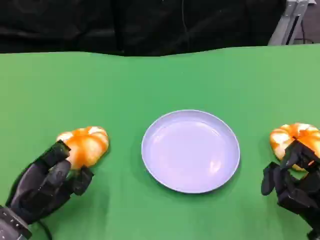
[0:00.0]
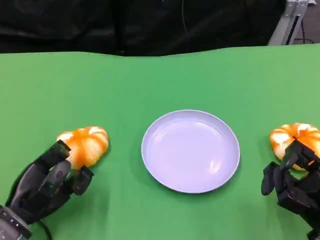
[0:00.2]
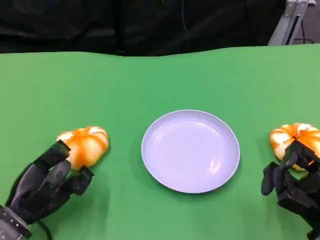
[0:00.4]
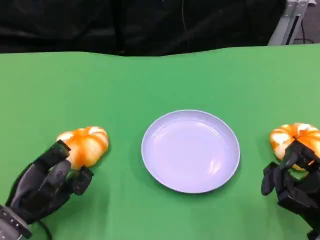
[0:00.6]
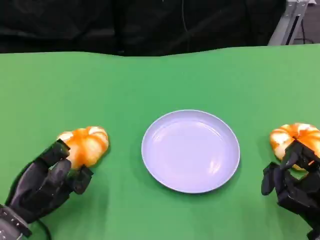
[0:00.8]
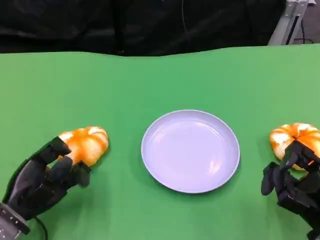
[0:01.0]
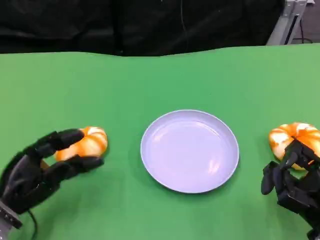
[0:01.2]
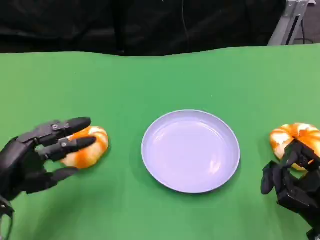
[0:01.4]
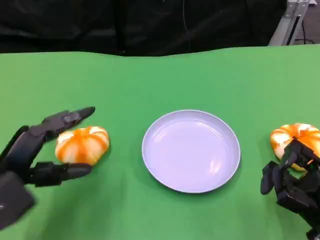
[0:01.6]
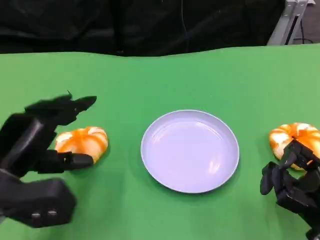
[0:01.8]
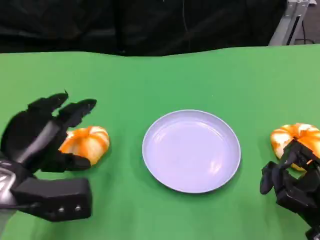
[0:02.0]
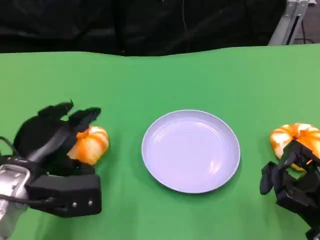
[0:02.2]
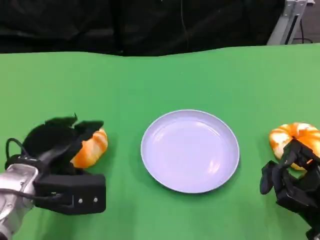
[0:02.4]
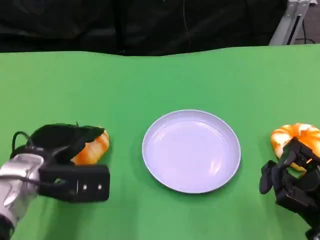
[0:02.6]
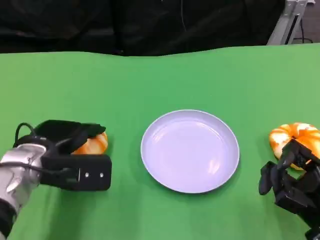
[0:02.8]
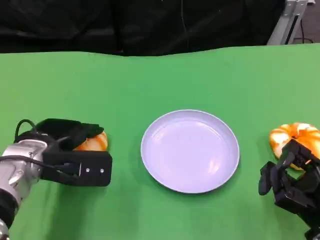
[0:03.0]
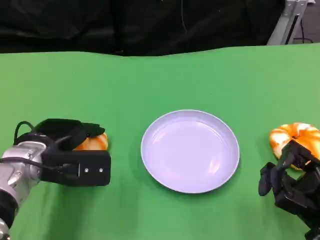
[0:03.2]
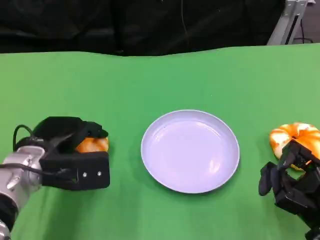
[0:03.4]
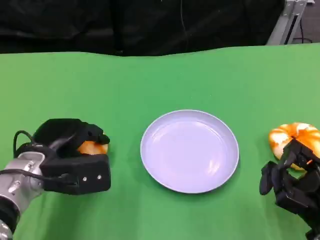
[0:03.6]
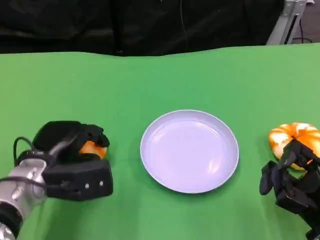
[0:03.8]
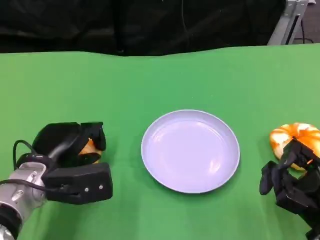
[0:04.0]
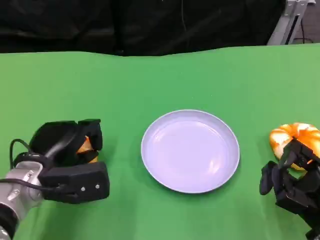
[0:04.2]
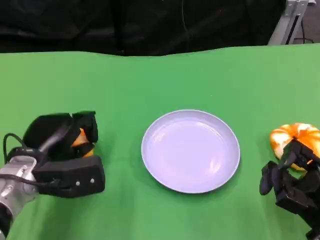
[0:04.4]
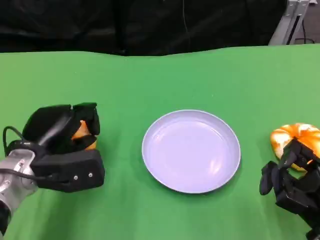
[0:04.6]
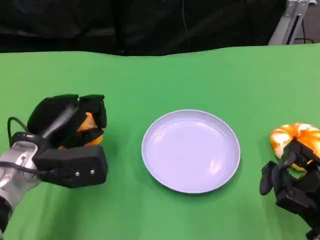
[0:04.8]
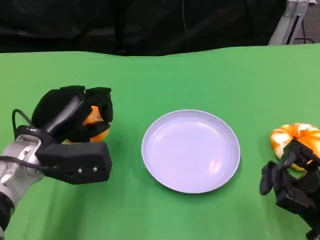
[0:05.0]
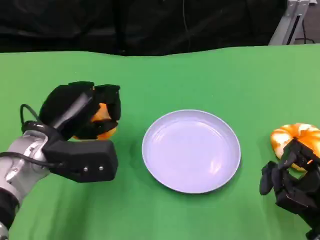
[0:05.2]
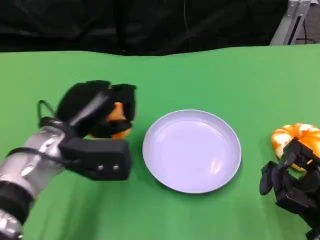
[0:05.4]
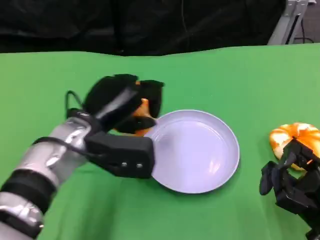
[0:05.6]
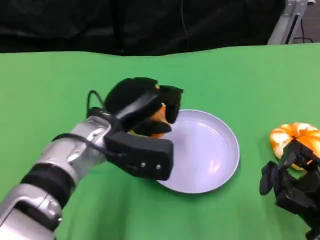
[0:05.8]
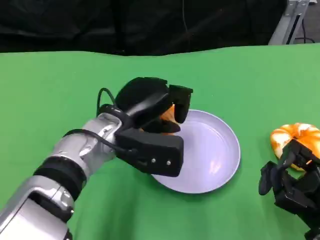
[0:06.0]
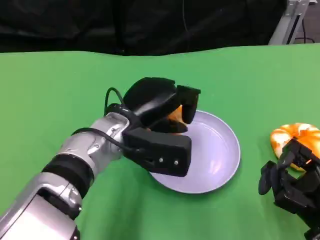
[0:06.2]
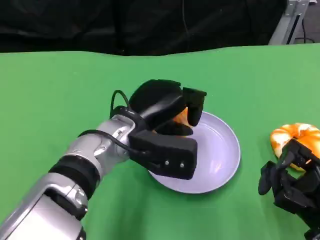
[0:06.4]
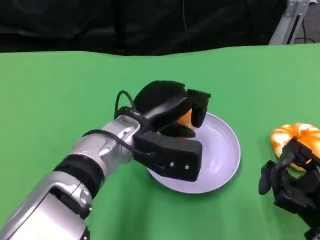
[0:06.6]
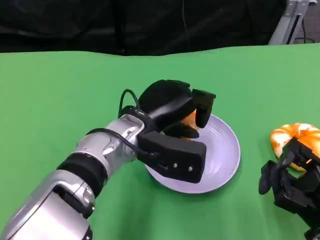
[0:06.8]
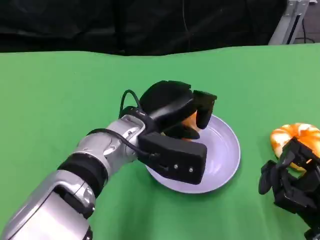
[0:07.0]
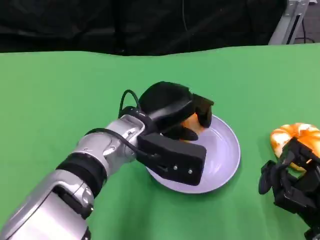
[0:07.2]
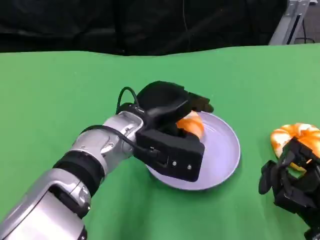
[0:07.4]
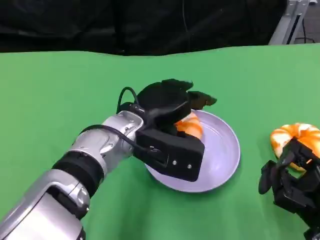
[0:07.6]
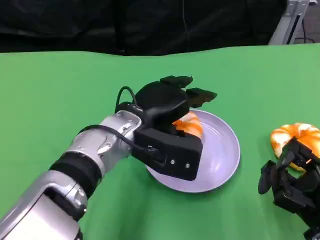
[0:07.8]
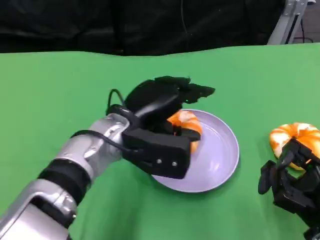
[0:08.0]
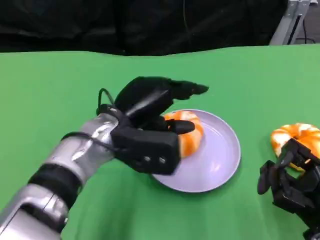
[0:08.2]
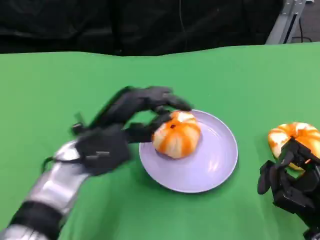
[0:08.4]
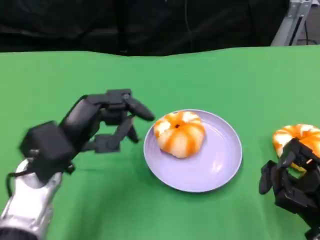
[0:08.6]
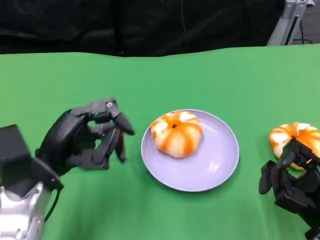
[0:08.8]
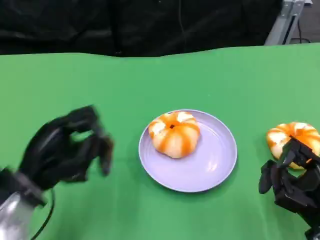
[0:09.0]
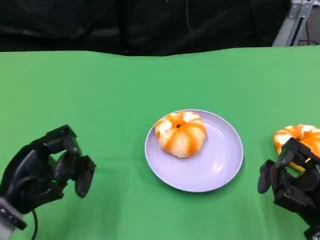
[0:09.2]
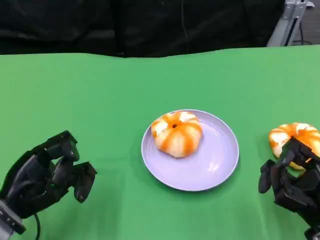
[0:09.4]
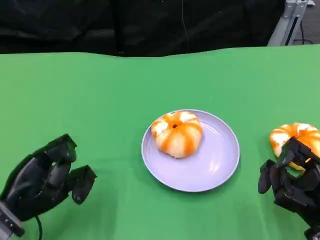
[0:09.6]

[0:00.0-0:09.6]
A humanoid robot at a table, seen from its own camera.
Task of the whole recording: Grasp the bread from the table and place it into the plate.
0:00.0 to 0:01.6: The left hand shifts some 10 cm upward.
0:01.6 to 0:03.2: The left hand heads forward, covering about 5 cm.
0:04.8 to 0:06.4: The left hand is displaced to the right by about 15 cm.
0:06.4 to 0:08.0: There are only small adjustments of the hands.
0:08.0 to 0:09.6: The left hand travels to the left, downward and backward by roughly 20 cm.

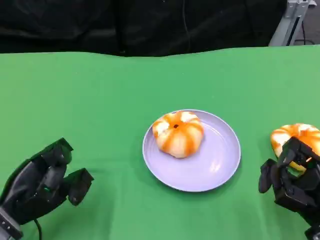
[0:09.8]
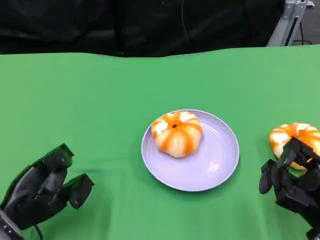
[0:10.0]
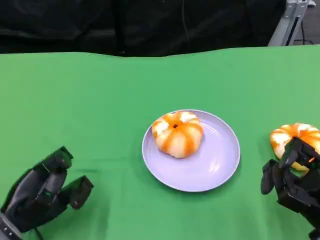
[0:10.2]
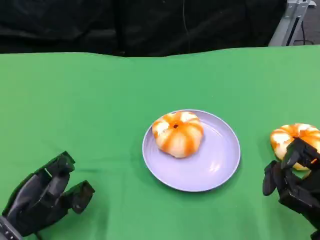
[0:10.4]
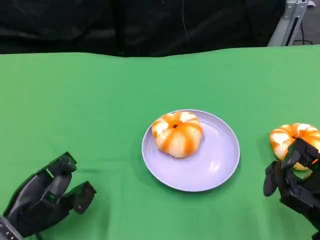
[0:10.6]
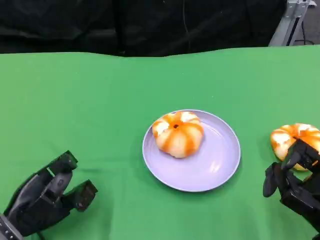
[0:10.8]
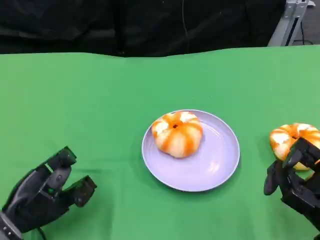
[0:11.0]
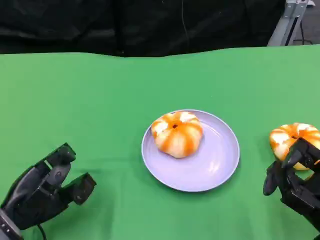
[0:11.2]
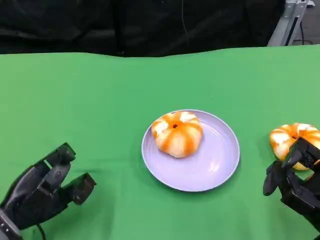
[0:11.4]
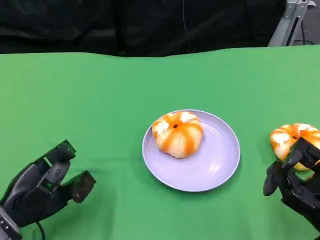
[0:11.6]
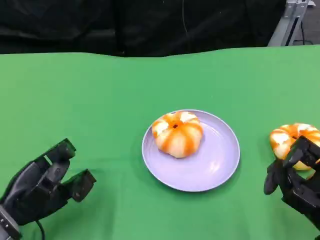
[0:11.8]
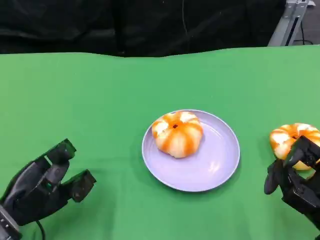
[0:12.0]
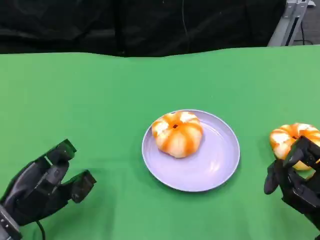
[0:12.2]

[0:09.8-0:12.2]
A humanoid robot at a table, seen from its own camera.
Task of the whole recording: Grasp the bread from the table and place it into the plate.
0:09.8 to 0:12.2: The hands move only a little.

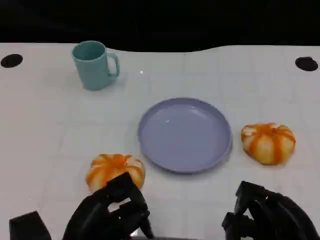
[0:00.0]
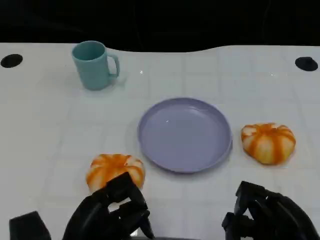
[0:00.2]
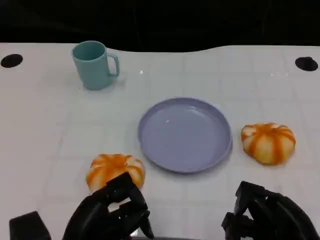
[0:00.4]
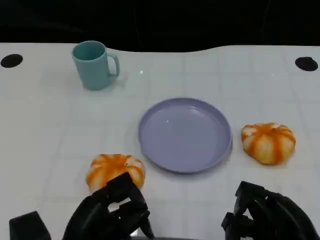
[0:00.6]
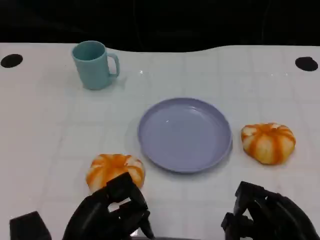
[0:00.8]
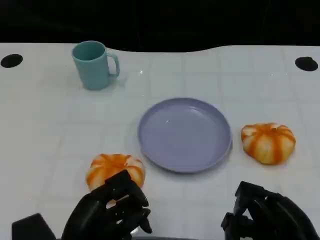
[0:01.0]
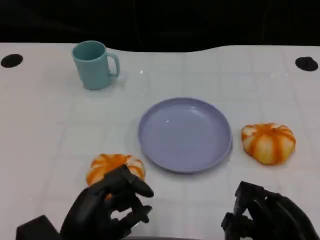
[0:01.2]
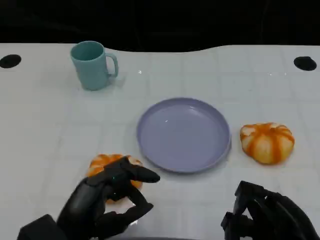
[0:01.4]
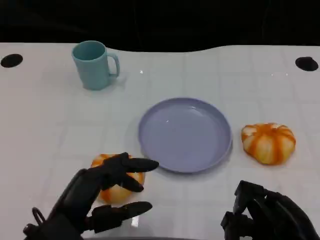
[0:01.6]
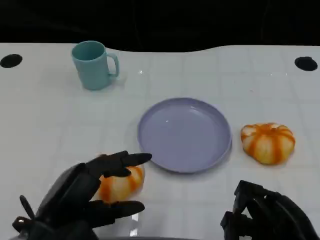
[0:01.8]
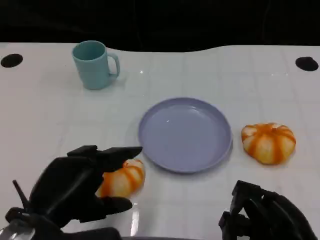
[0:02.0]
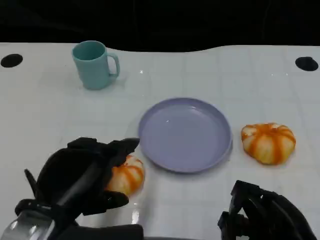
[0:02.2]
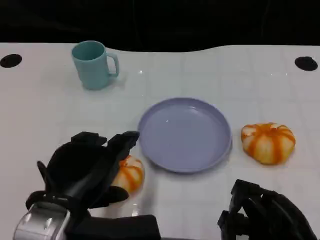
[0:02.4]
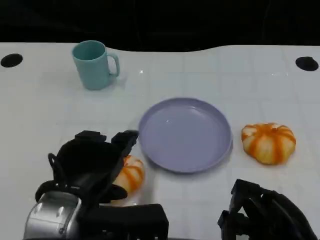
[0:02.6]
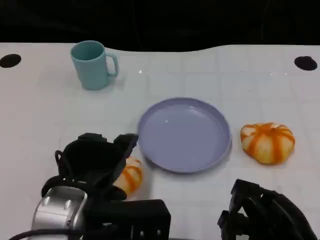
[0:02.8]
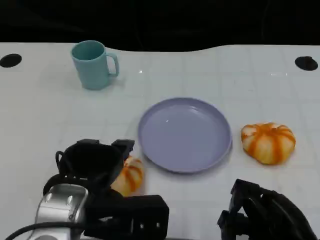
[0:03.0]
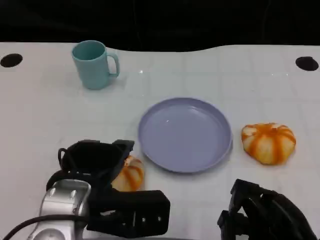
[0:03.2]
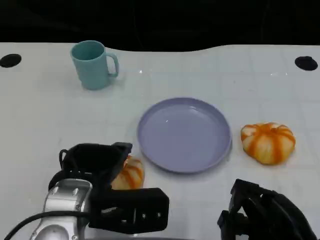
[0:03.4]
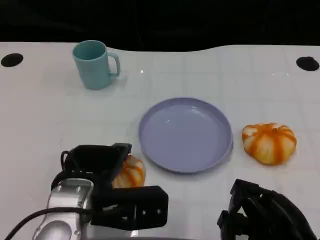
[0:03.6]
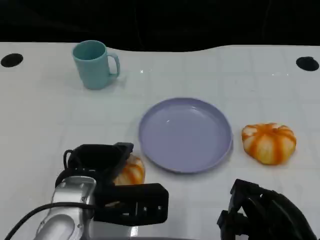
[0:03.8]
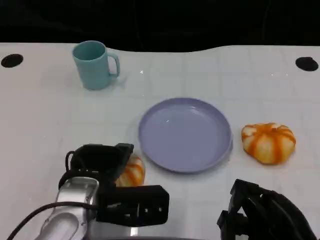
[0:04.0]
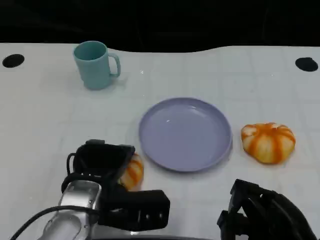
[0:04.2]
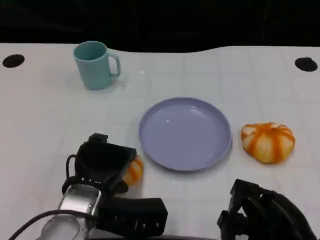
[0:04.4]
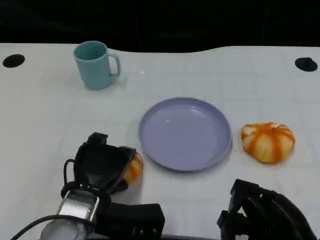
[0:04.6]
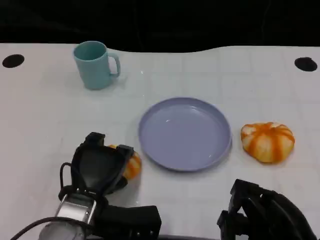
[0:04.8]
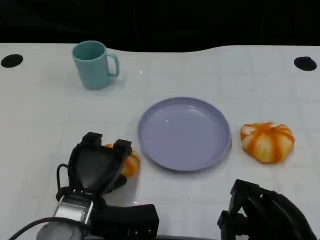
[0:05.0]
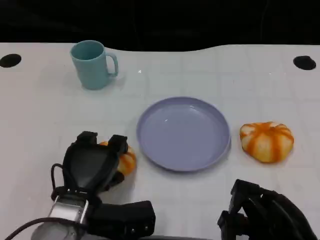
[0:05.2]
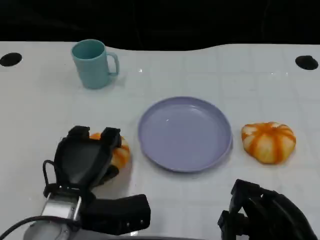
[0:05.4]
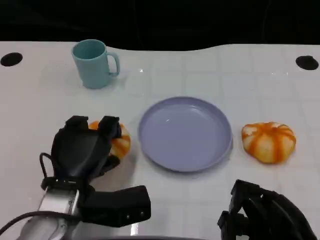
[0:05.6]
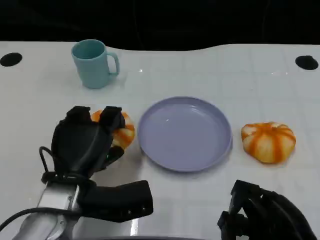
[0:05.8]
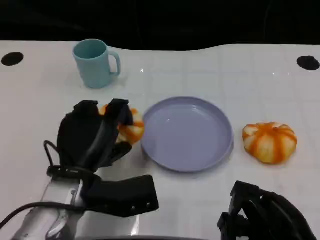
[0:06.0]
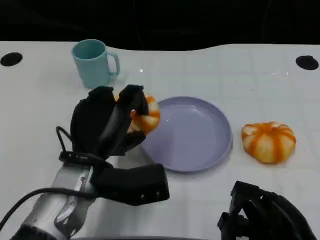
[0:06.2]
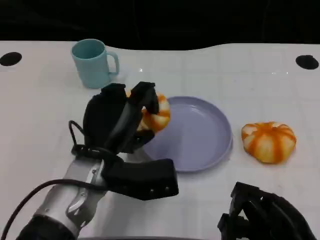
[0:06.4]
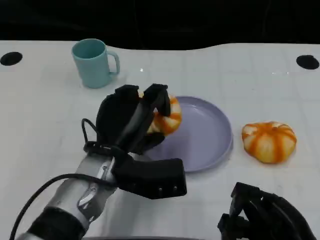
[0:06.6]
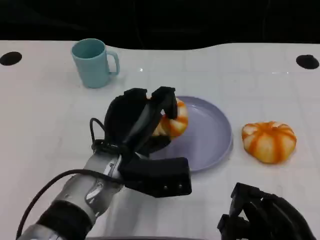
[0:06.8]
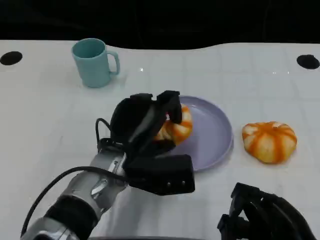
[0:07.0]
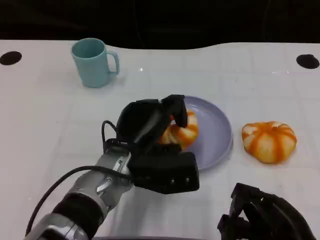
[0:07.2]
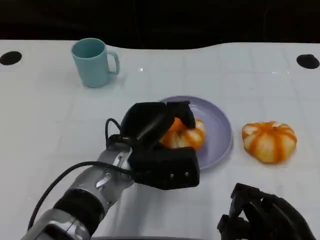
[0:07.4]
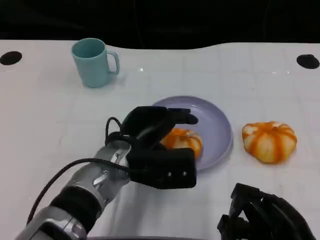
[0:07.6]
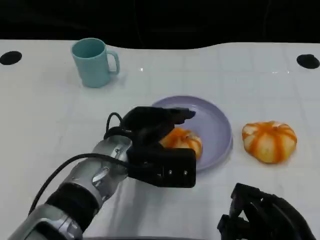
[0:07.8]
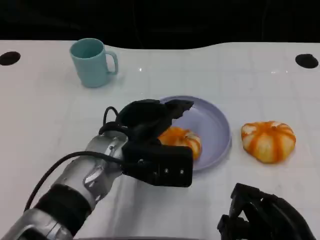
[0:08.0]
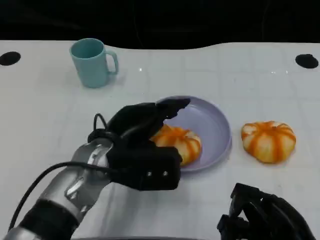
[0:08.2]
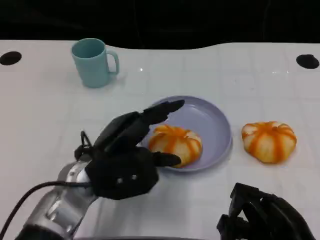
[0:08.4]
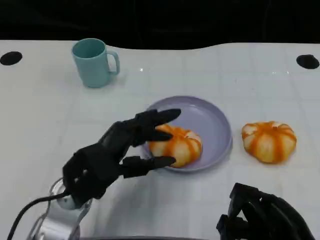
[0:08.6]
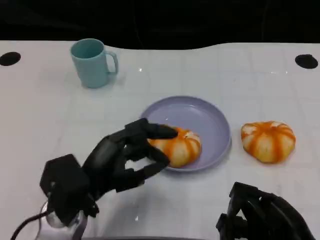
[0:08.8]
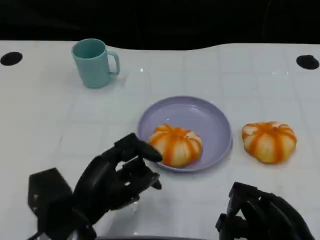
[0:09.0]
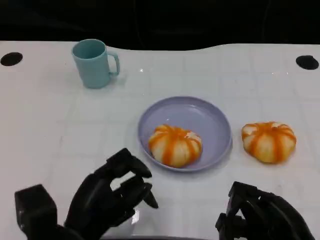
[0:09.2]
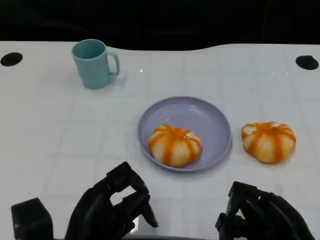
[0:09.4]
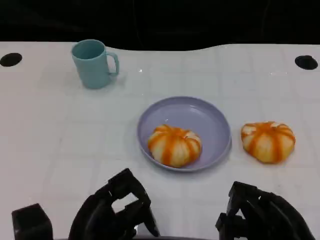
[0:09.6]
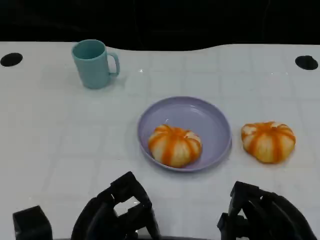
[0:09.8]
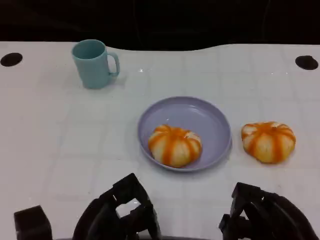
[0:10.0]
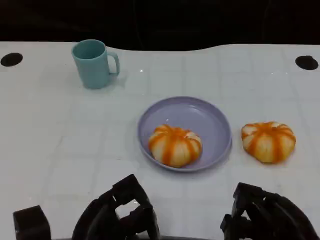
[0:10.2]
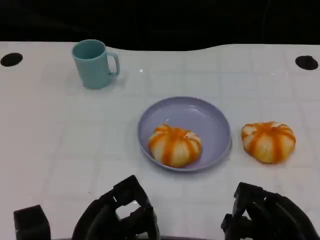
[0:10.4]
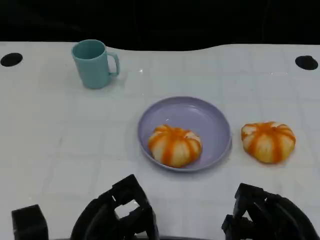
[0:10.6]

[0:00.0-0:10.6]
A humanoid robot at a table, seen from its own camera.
Task of the whole recording: Grasp the bread from the table and place it into the plate.
0:00.0 to 0:01.6: The left hand moves about 5 cm.
0:01.6 to 0:03.0: The left hand moves approximately 5 cm.
0:03.0 to 0:04.6: The left hand goes roughly 10 cm downward.
0:06.0 to 0:07.6: The left hand heads to the right, covering roughly 5 cm.
0:07.6 to 0:09.0: The left hand heads backward and to the left, covering about 15 cm.
0:09.0 to 0:10.6: The hands make only small movements.
